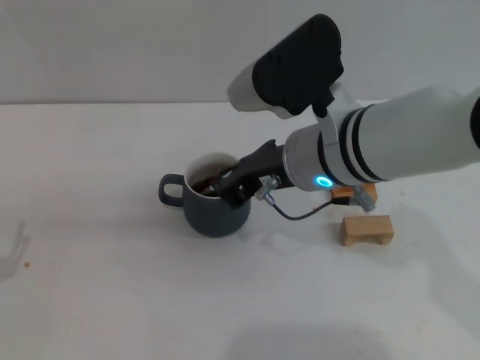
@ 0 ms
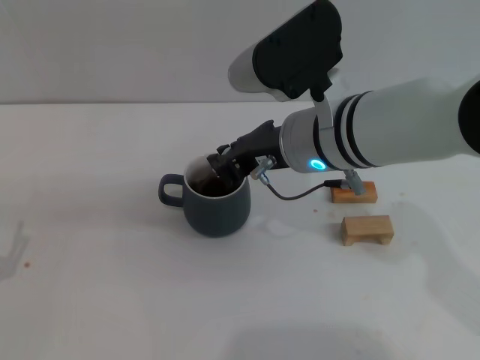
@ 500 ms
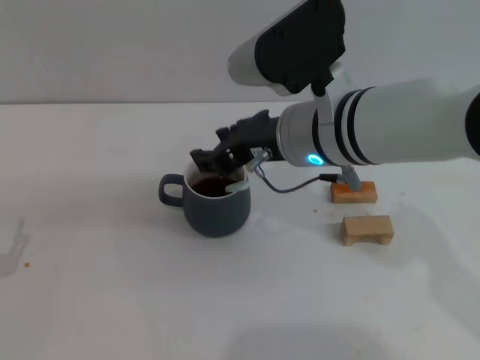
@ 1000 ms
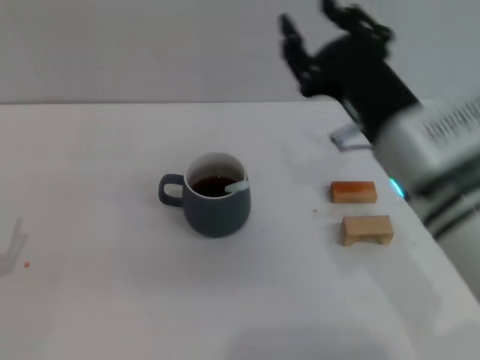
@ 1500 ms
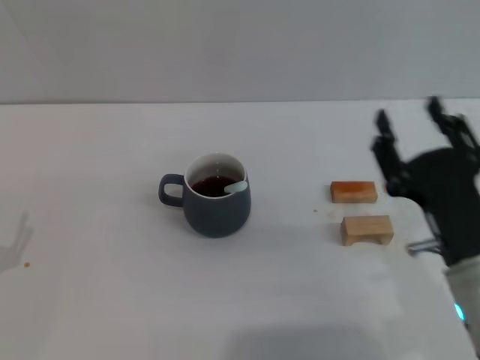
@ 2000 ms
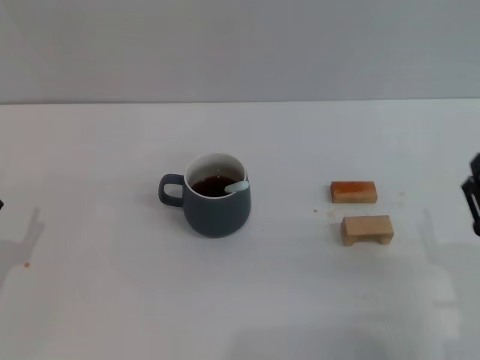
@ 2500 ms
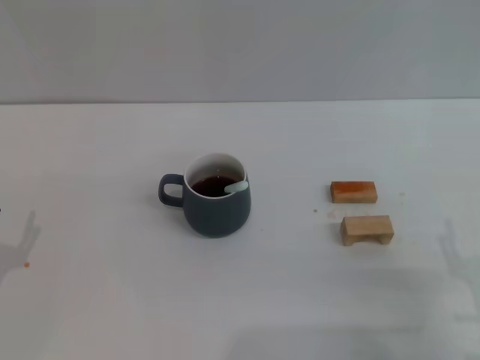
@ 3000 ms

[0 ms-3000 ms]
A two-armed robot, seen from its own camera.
Task of the whole recording: Move the grey cup to the center, lift the blue spoon, stir it three times in the cup, and put the spoon into the cup.
0 ms to 1500 ms: The right gripper moves to the right, some 5 cm, and opens up.
1500 ms to 3000 ms: The right gripper shifts about 20 cm backward, downward and to the right, and opens.

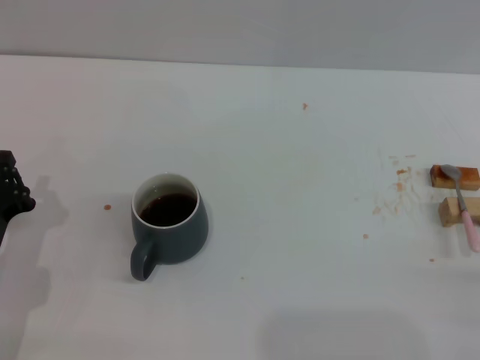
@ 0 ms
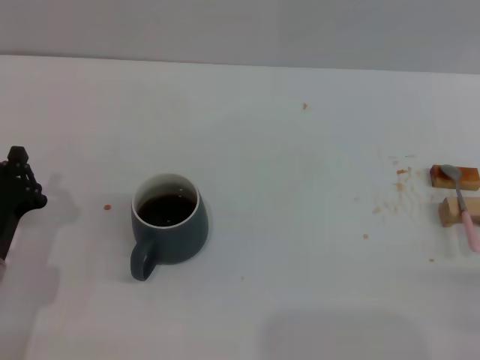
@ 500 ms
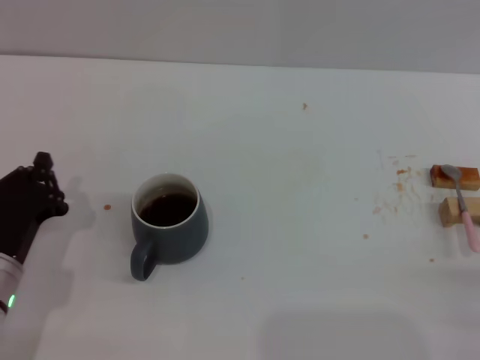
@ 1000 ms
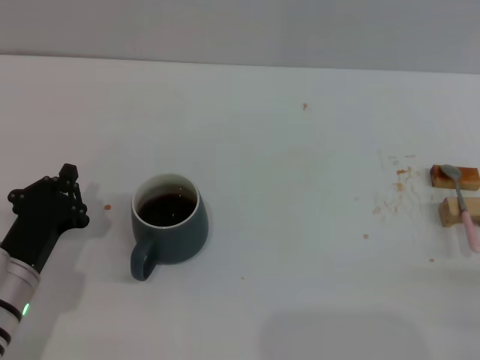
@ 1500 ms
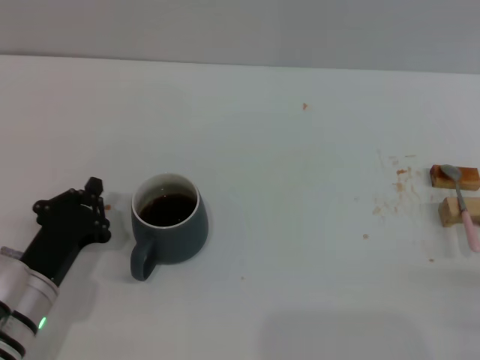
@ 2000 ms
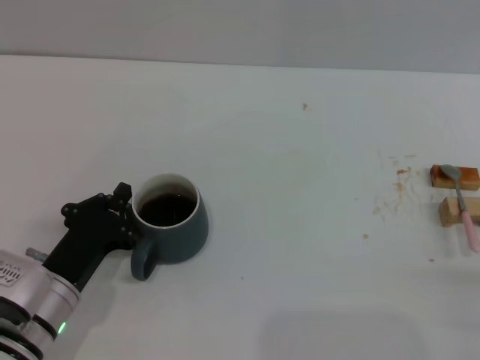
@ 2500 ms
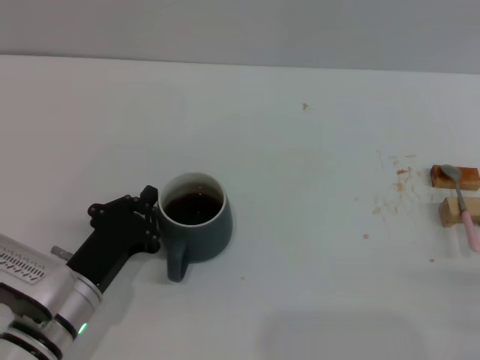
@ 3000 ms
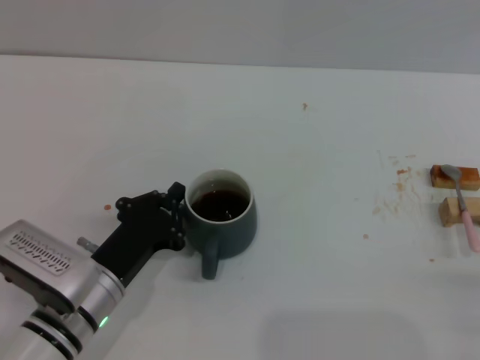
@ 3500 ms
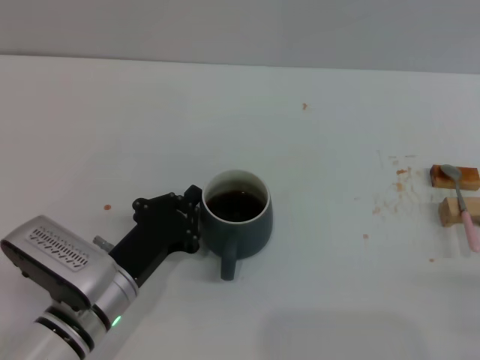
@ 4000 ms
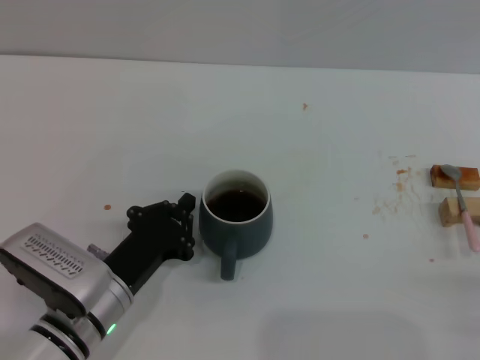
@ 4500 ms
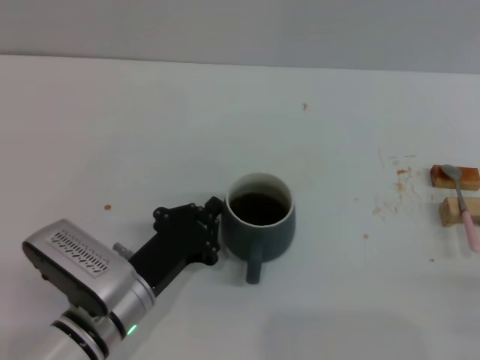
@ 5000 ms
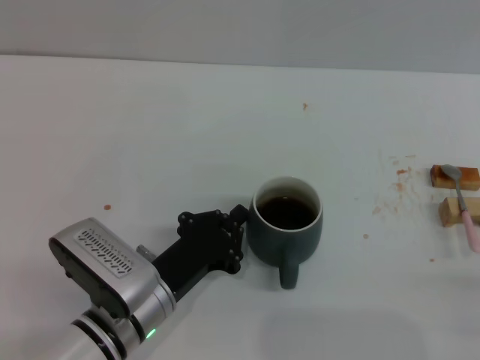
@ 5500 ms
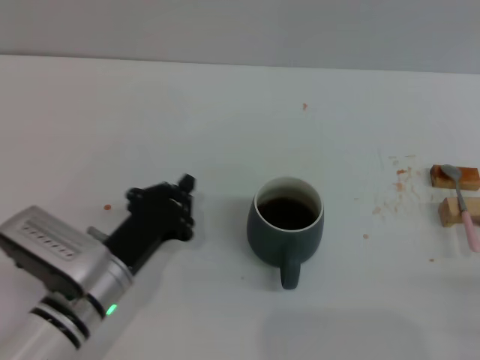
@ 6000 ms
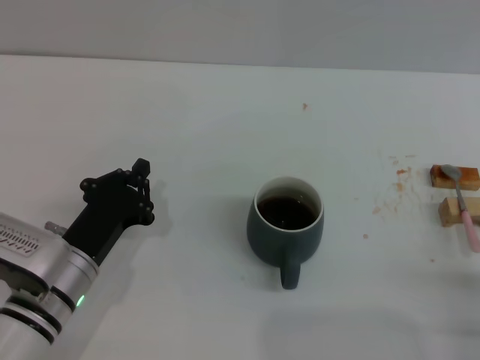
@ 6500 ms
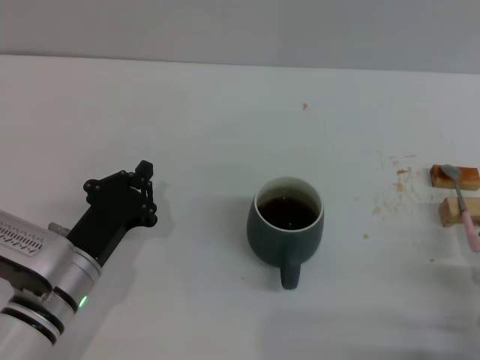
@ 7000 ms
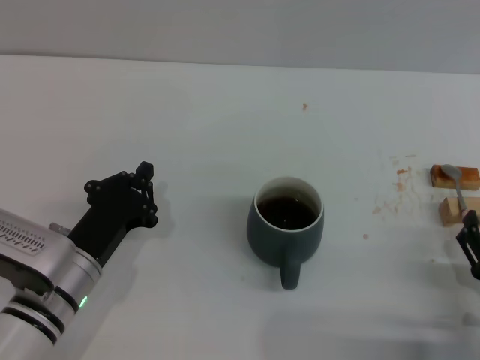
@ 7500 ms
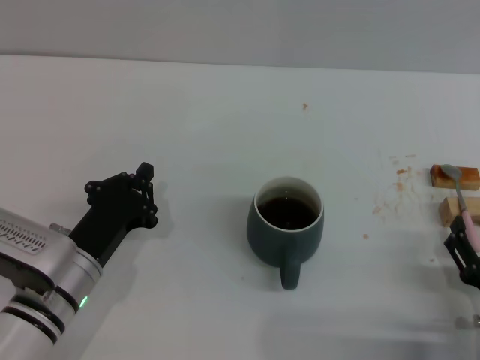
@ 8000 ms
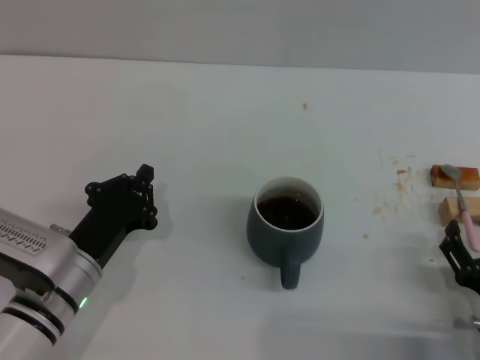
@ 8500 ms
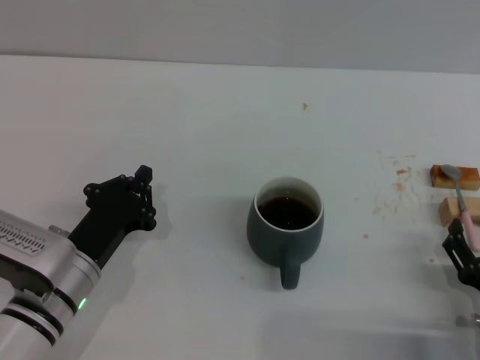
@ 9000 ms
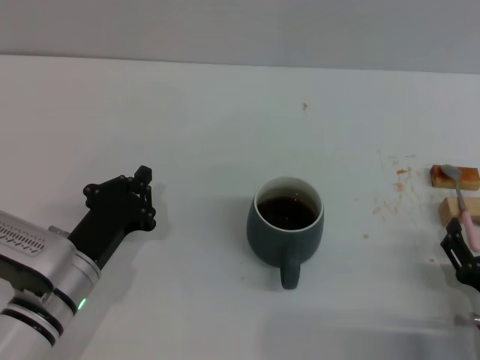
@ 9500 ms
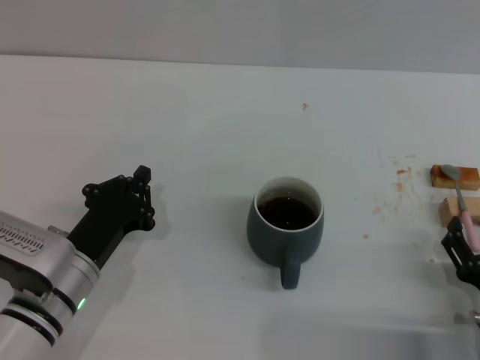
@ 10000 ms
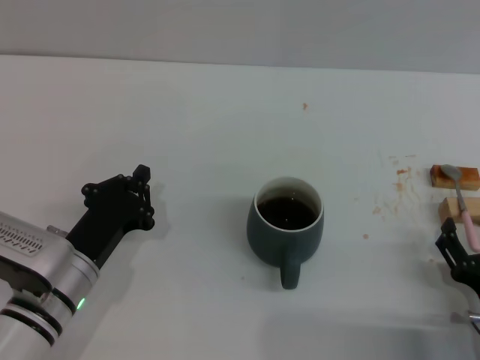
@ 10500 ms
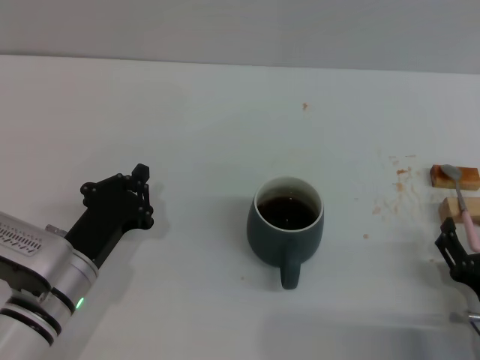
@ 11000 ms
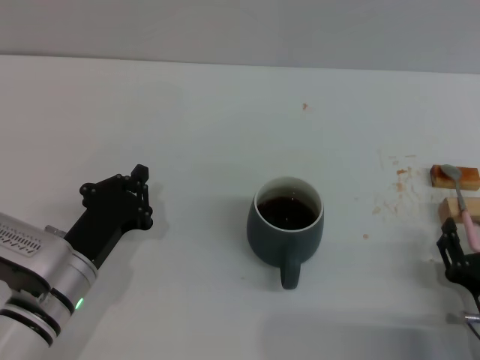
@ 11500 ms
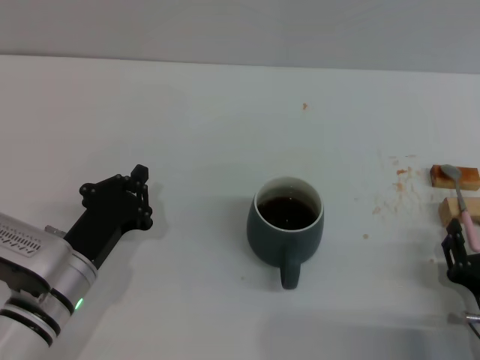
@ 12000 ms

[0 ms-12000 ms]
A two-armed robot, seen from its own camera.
Task of the whole recording: Move the grey cup to the center, lift the pink spoon, stir it three times in the cup, and put the spoon into the cup.
Step, 0 ms to 6000 ms: Move the cup with coffee to the center of view with the left gripper.
0 ms to 2000 ms: There are only small adjustments of the grippers.
2000 ms to 4000 ms: The left gripper heads to the right, covering some 5 cm.
4000 ms to 6000 ms: The grippers move only a little.
6000 ms to 8000 ms: The right gripper is displaced to the left by about 5 cm.
8000 ms to 10000 ms: Both grippers stay put.

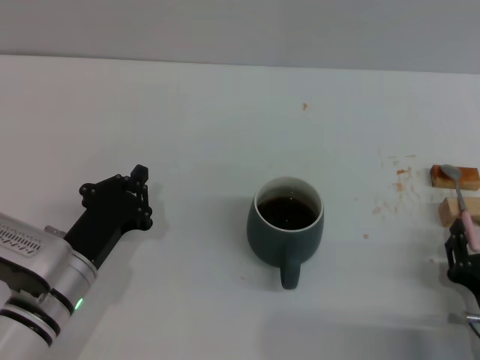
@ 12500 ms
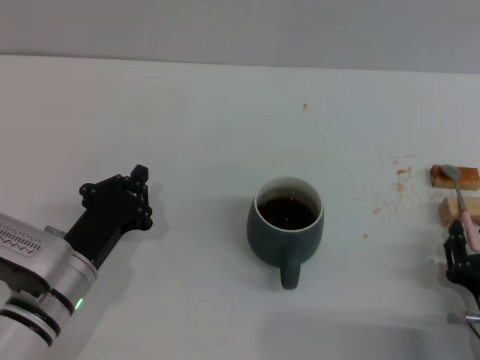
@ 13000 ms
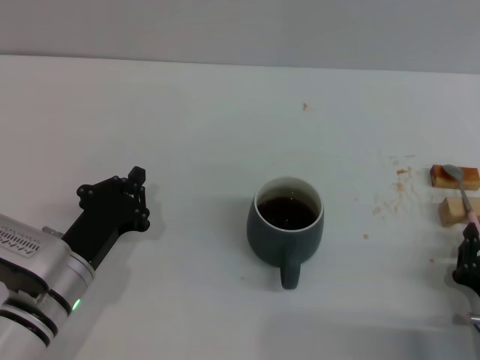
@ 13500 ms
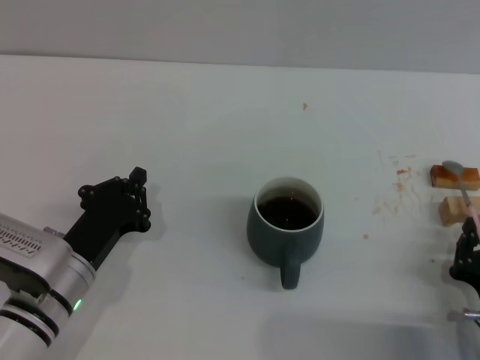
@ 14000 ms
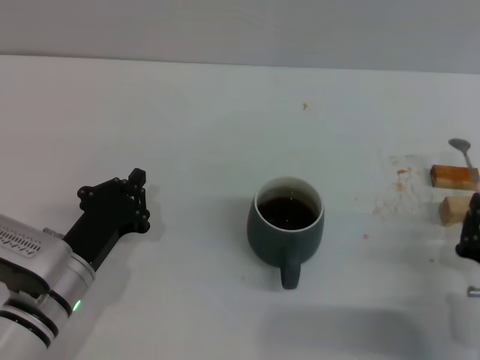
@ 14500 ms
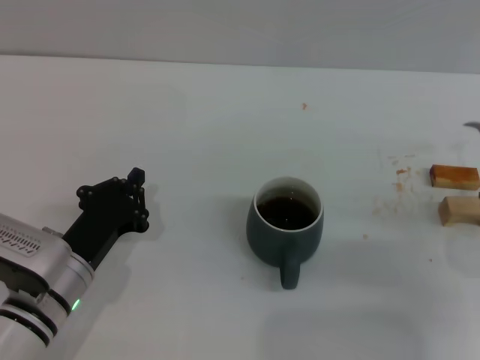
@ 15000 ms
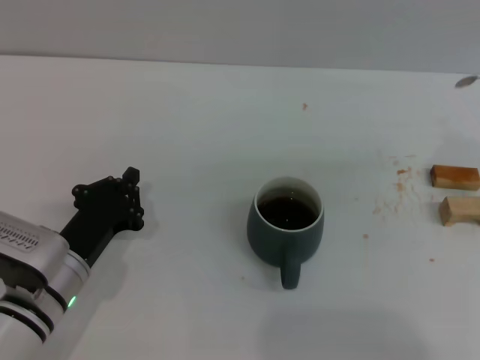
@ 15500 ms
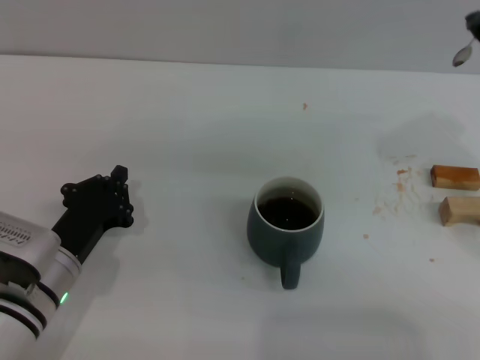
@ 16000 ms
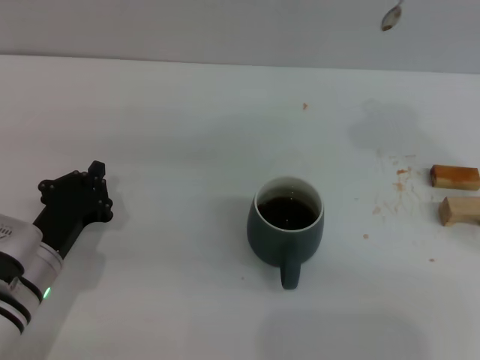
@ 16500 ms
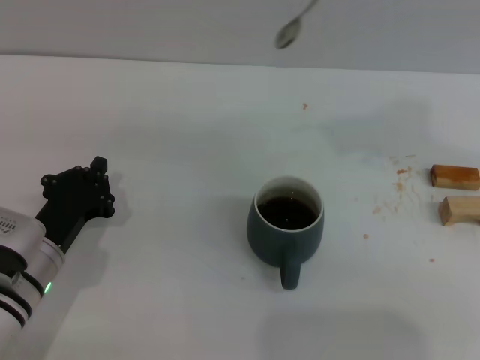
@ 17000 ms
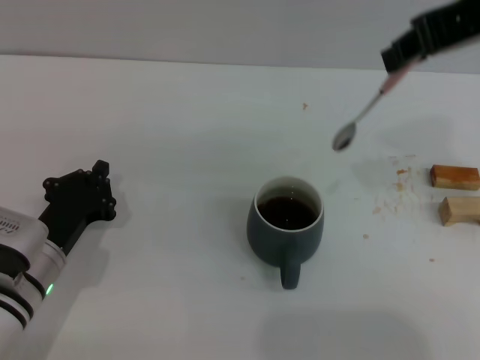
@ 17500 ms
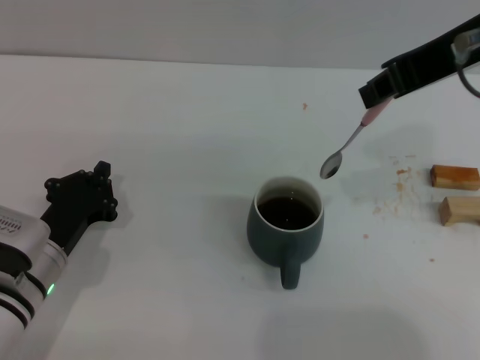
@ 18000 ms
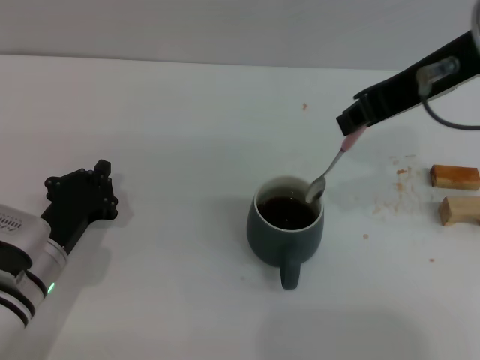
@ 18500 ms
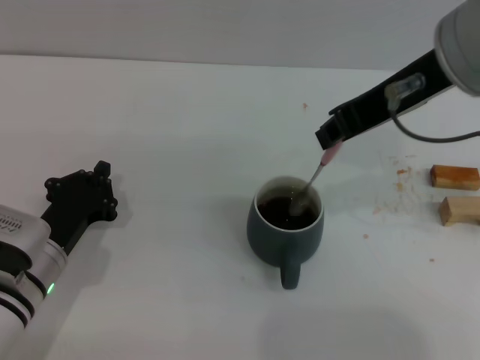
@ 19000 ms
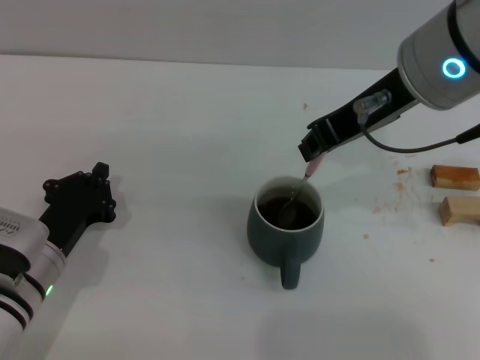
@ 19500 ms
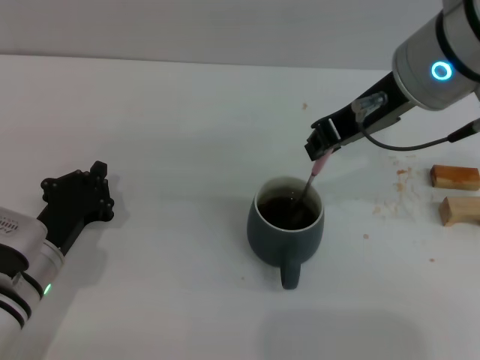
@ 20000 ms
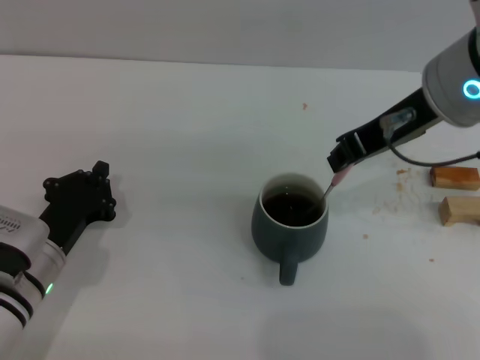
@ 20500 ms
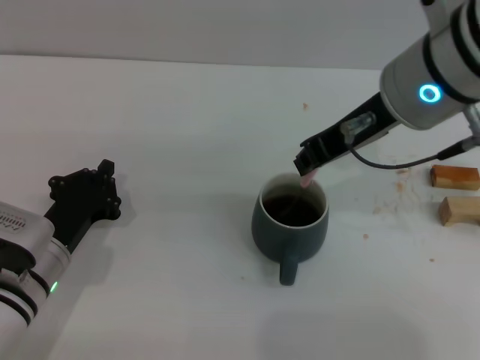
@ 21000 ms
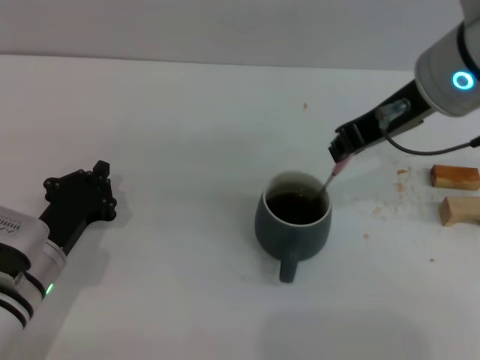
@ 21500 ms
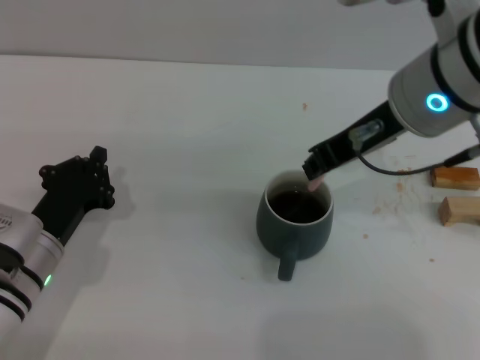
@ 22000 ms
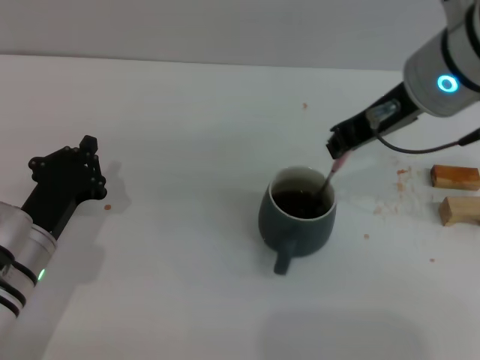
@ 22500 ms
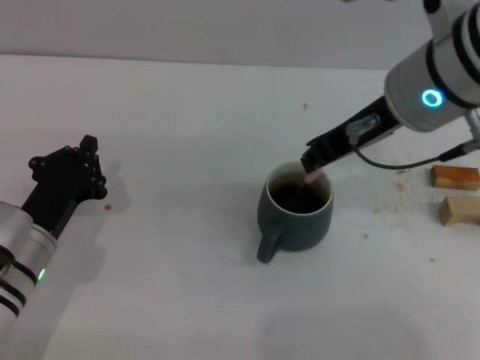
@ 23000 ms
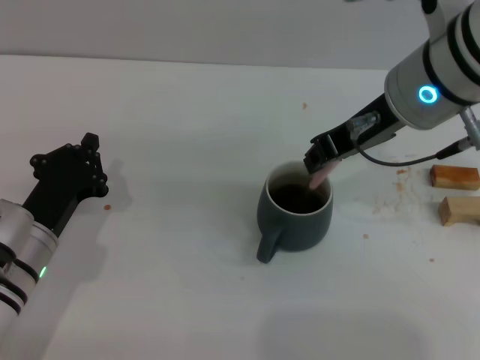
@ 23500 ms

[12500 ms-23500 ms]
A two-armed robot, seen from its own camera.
Task of the whole recording: Move the grey cup to the center, lift the pink spoon, stir it three times in the cup, and put the spoon into the cup.
Step, 12500 ms to 14500 ms: Pick up the spoon with the right gripper.
12500 ms to 14500 ms: The right gripper closes up.
14500 ms to 16000 ms: The right gripper moves upward and forward, roughly 35 cm.
18000 ms to 20000 ms: The right gripper is displaced downward by about 10 cm.
20000 ms to 23500 ms: The grippers make only small movements.
